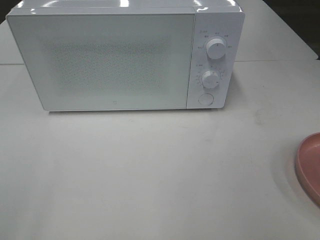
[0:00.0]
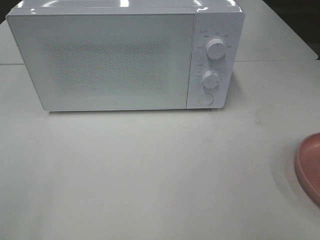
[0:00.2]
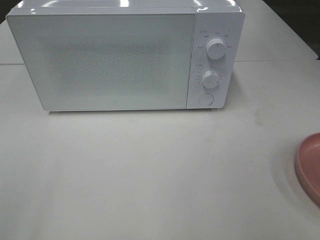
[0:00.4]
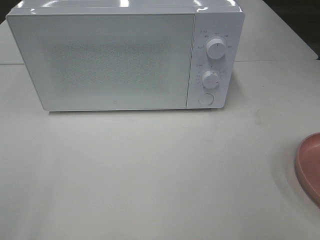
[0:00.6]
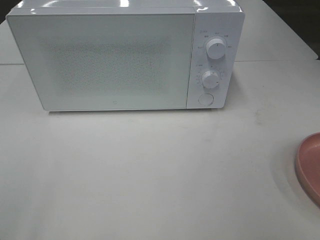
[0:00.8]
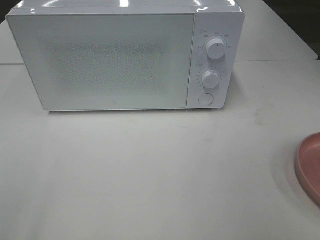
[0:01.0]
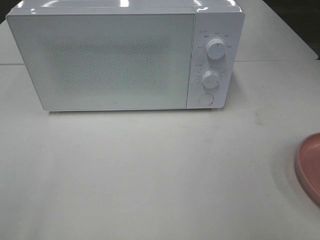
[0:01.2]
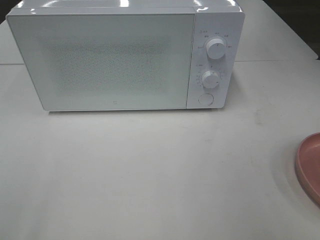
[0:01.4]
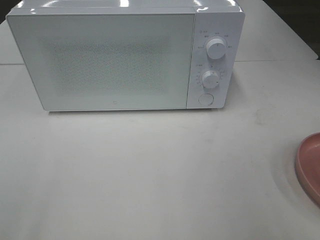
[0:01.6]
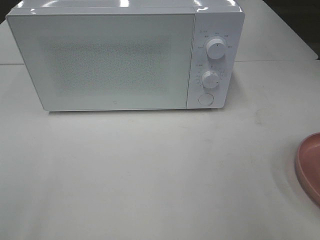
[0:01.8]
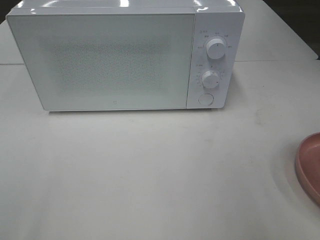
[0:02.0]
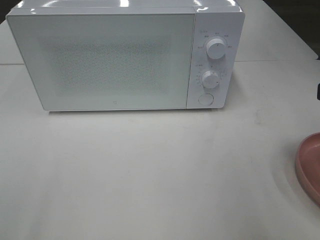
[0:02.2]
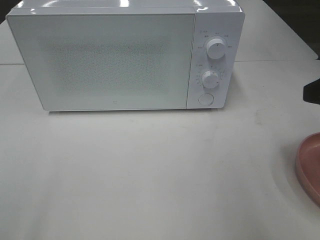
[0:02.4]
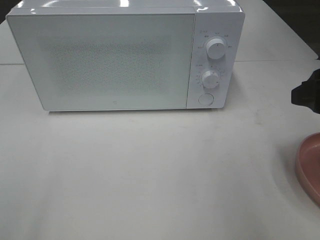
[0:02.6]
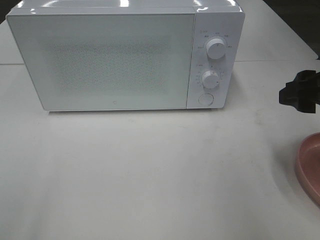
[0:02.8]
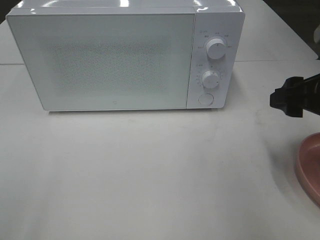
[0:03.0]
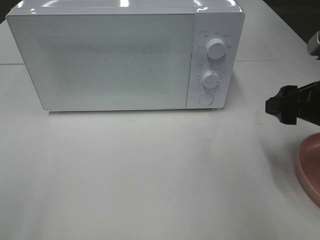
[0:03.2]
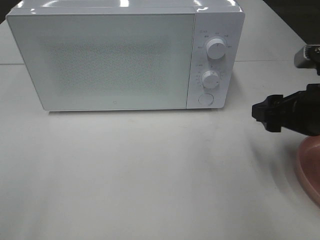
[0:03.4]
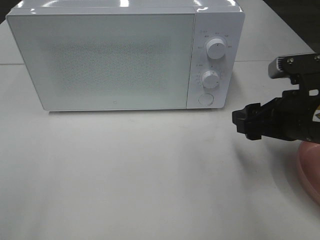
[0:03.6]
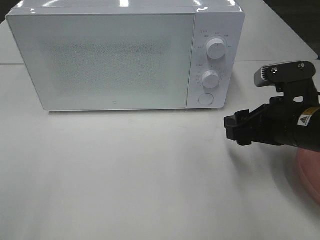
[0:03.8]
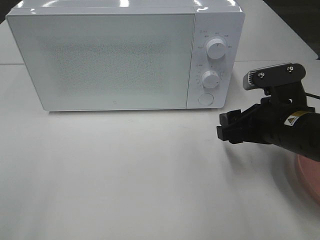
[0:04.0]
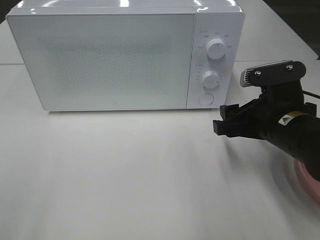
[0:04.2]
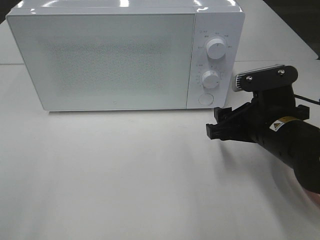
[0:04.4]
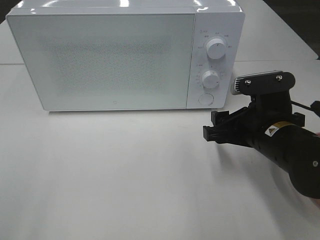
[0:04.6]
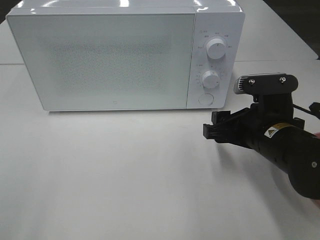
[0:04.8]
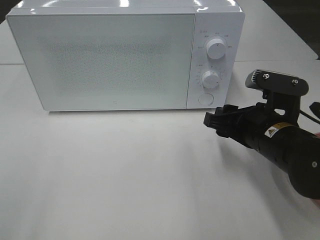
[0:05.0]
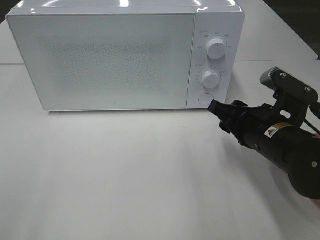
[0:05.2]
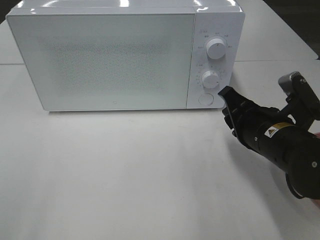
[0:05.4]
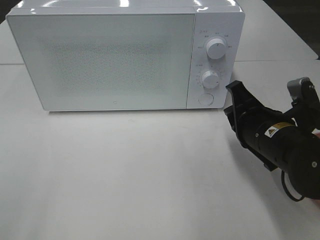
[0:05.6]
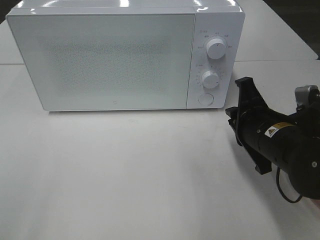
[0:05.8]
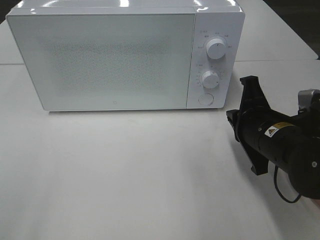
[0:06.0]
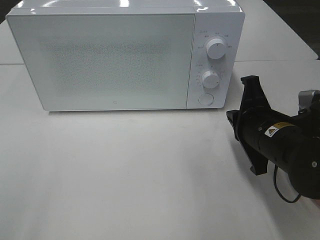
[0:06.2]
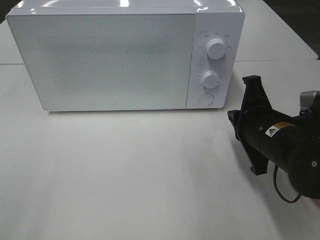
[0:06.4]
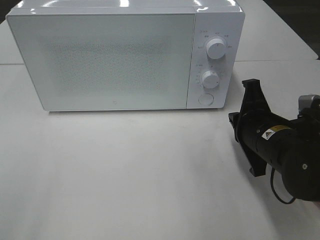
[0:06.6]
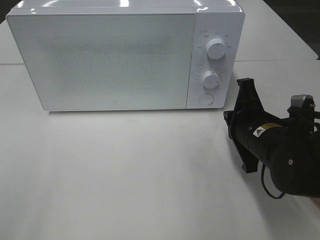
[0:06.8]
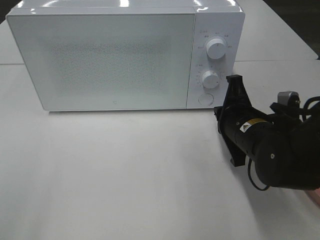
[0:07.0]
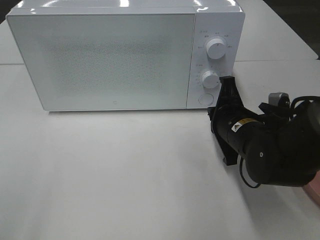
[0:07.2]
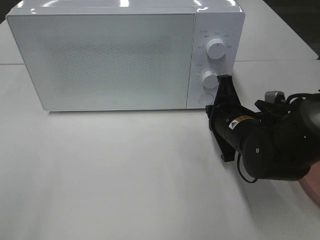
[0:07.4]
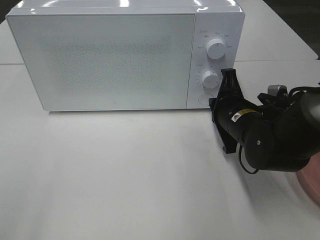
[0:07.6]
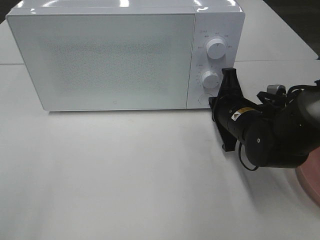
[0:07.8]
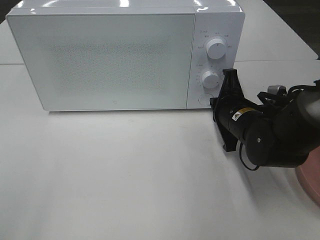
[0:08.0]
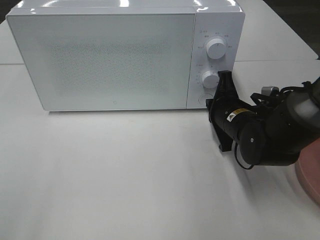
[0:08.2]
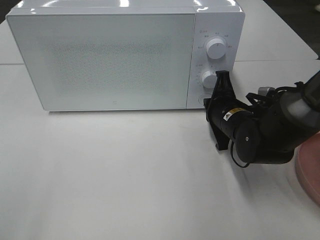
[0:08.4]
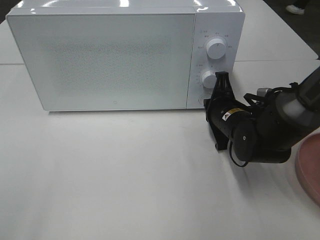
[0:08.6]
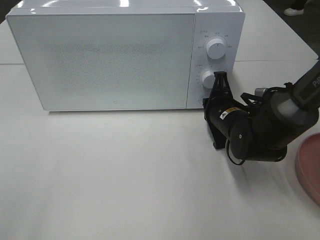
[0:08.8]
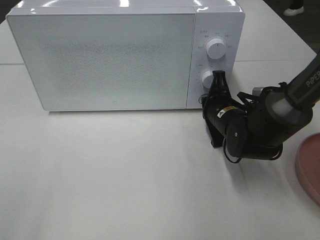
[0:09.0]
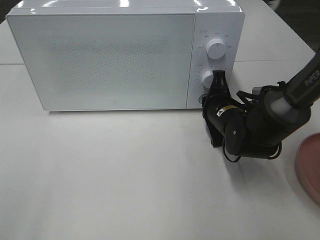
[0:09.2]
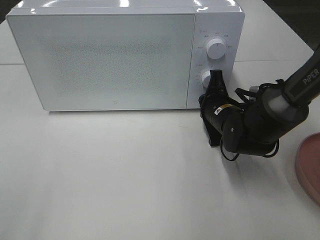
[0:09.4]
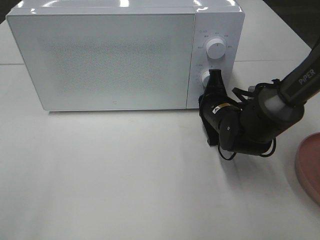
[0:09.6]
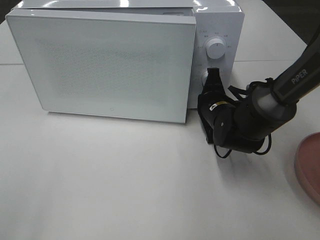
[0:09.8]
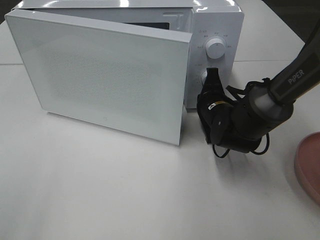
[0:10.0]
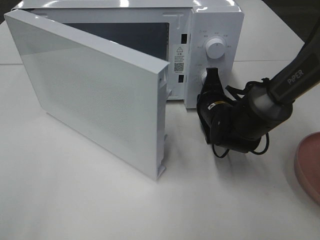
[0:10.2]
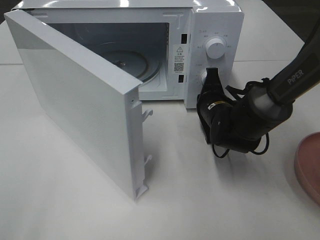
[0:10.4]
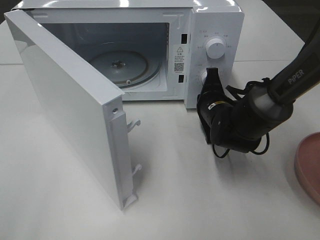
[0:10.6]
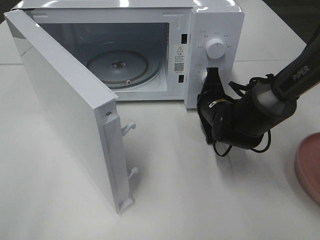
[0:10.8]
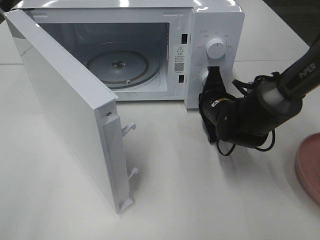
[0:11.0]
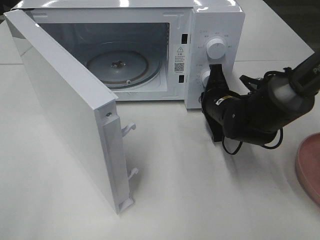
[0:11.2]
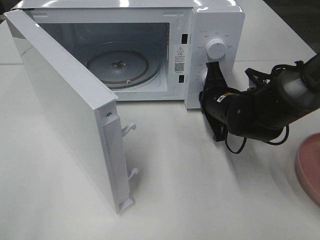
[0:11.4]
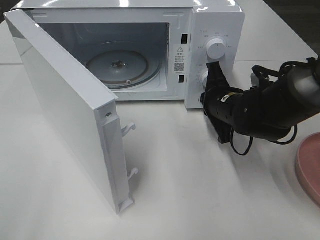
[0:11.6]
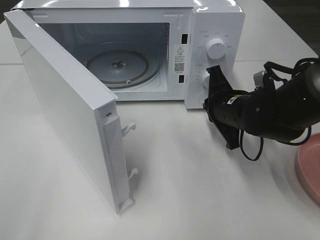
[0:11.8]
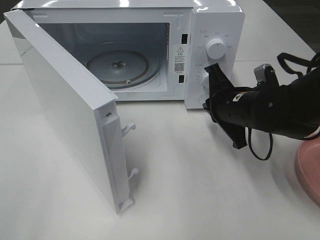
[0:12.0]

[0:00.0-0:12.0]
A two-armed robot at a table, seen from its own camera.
Task of the whole recording: Heat the burger.
Step, 0:00.0 to 0:11.4: Right hand: press the switch.
0:01.6 to 0:03.0: The right gripper shifts about 15 cm forward and downward.
0:03.0 to 0:04.4: The right gripper heads downward and to the left, covering some 10 cm.
0:04.4 to 0:06.0: The right gripper closes.
0:06.0 to 0:07.6: The right gripper moves forward, roughly 5 cm.
0:07.6 to 0:09.0: The right gripper changes place by some 5 cm.
0:10.4 to 0:12.0: The right gripper heads upward and backward, covering roughly 10 cm.

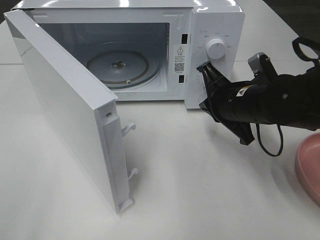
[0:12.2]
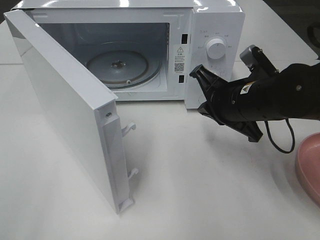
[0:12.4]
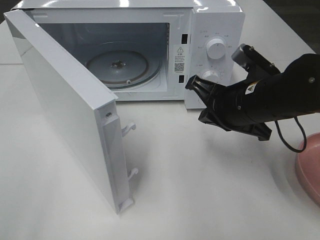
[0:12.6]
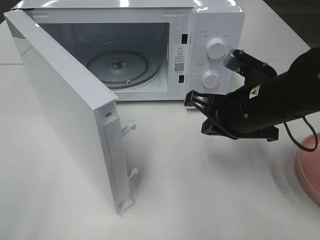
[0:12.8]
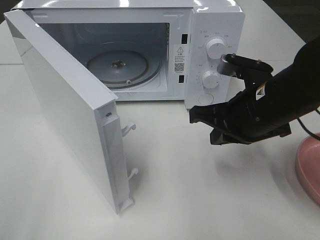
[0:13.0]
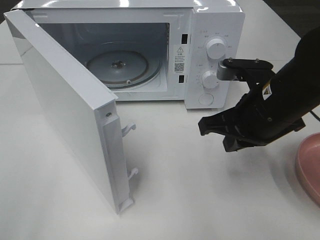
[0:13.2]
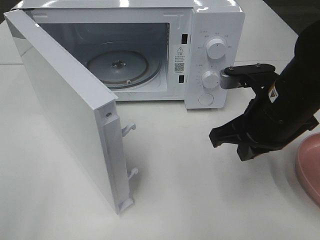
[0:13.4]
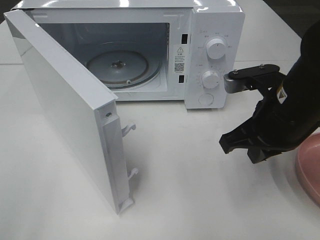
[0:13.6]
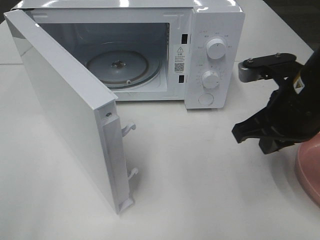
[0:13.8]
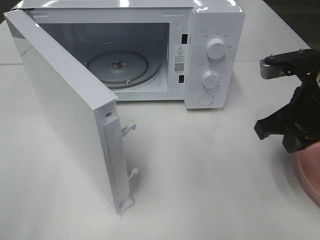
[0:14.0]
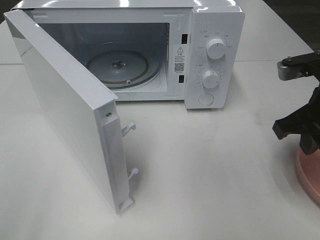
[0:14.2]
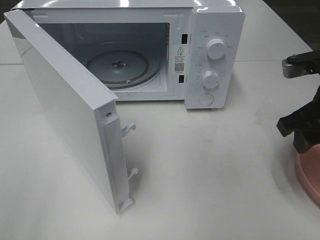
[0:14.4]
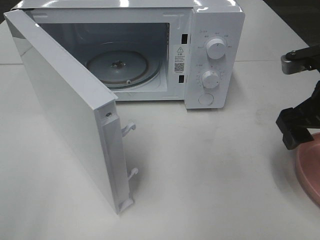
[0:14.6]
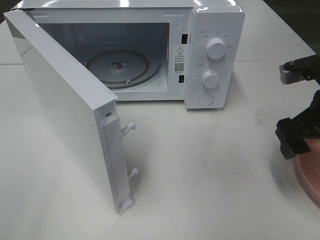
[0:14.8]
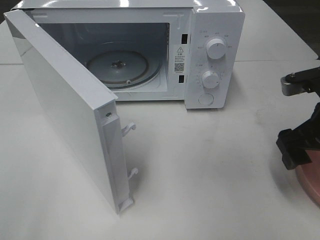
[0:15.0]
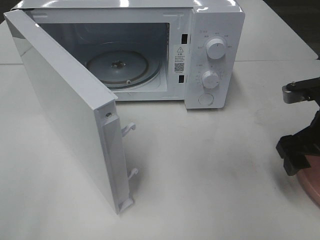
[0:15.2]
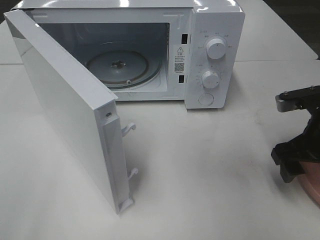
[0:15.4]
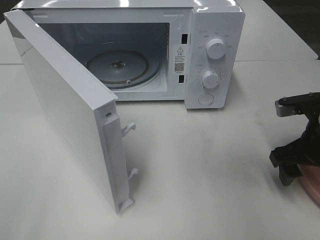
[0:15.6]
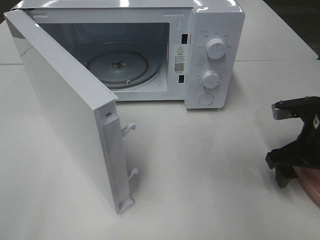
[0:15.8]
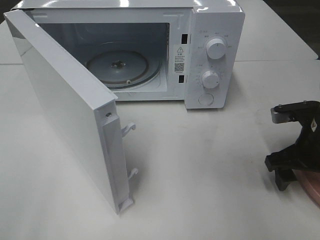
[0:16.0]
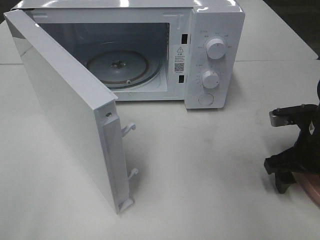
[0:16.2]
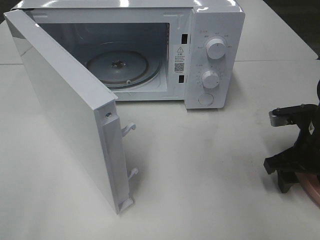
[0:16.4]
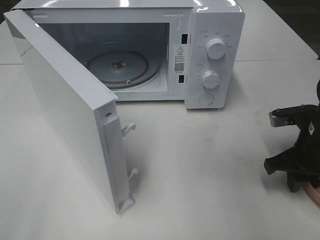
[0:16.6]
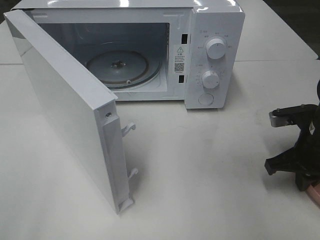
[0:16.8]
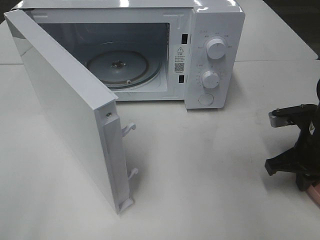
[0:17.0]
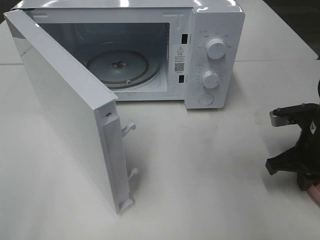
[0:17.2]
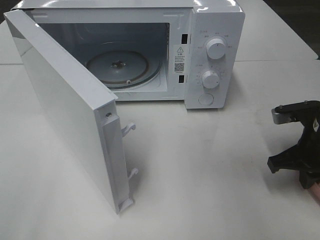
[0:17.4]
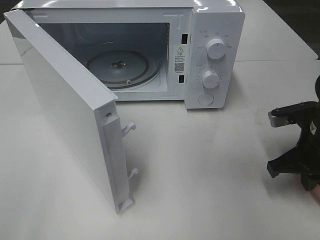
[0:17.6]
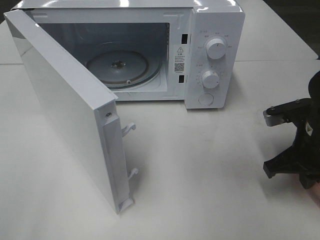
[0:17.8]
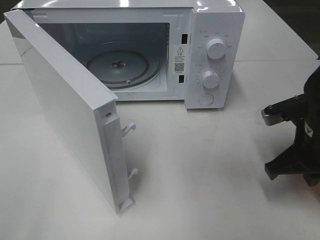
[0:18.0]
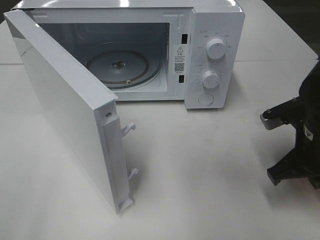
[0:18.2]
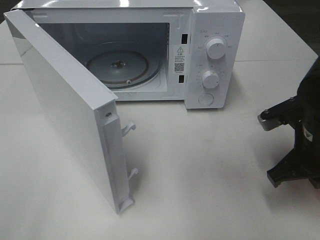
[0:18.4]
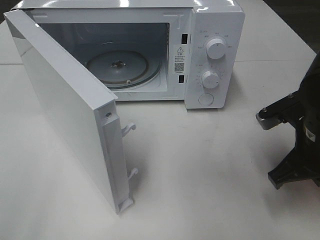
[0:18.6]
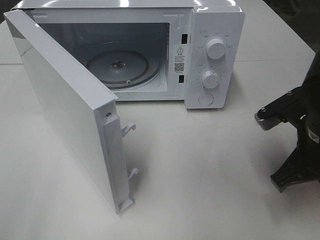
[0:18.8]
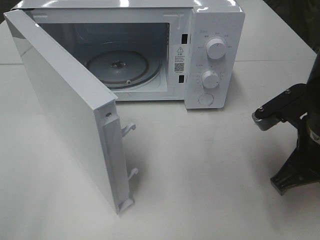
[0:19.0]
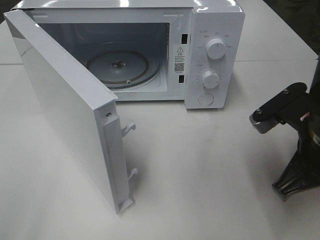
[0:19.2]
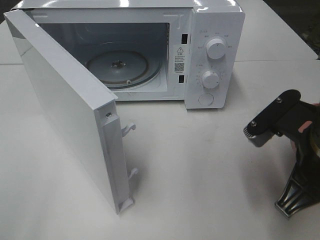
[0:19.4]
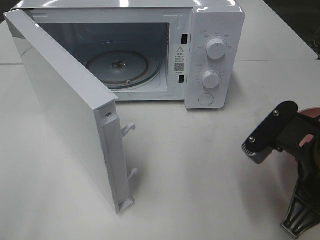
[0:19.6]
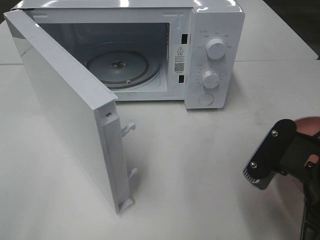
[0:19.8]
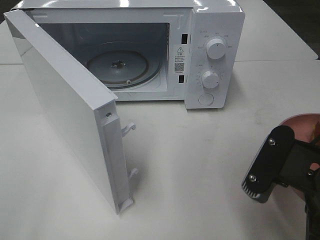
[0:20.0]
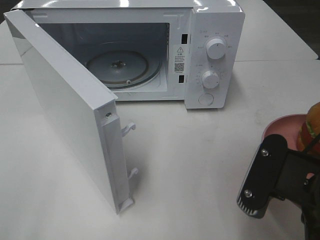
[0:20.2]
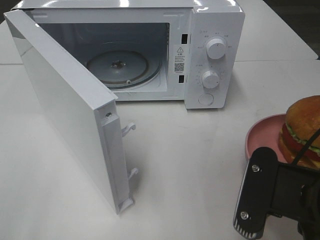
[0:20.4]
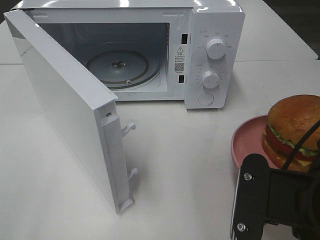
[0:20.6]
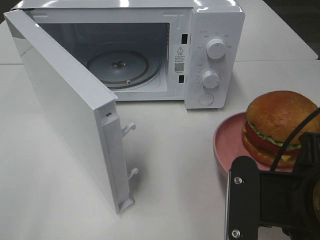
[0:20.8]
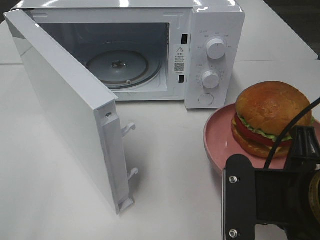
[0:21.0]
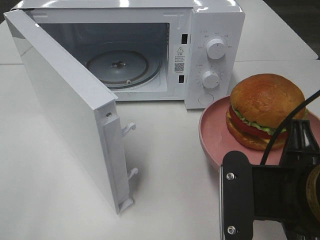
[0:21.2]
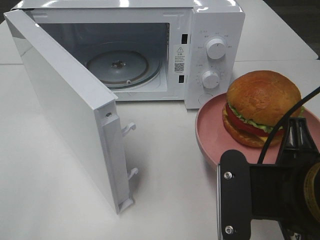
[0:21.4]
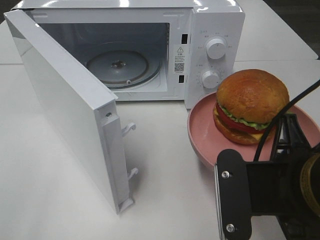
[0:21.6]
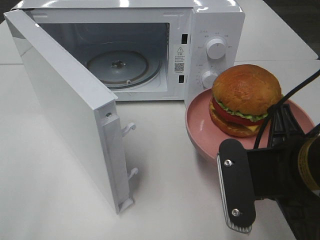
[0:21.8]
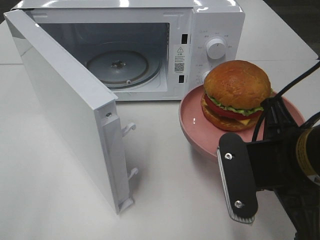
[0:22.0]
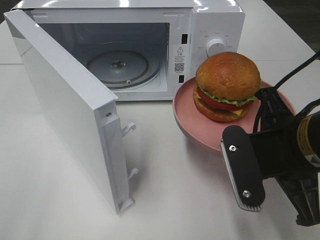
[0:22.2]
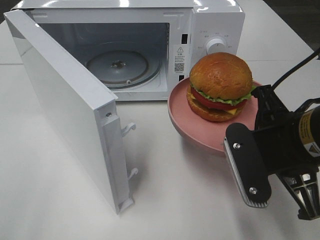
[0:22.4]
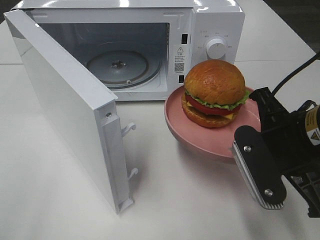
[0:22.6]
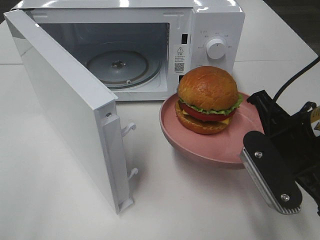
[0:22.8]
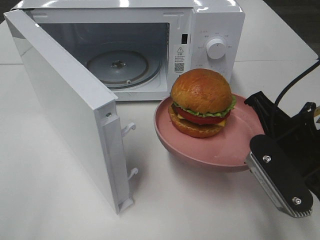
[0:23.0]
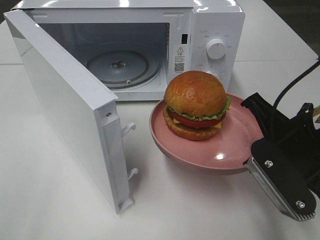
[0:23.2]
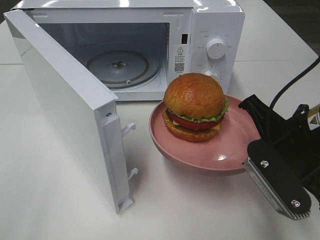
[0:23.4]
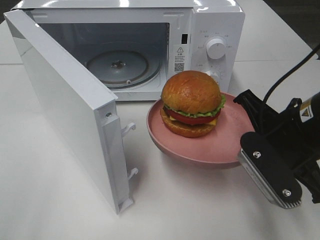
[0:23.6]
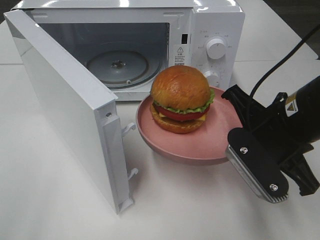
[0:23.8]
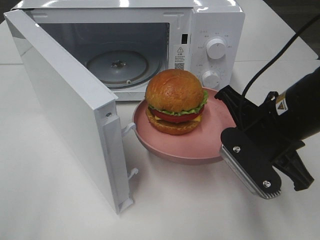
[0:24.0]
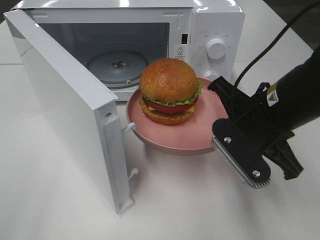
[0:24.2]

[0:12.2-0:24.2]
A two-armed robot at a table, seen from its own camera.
Task of the whole recording: Heat the burger.
Step, 0:12.2 to 0:17.0: Right hand: grab the plate with the hamburger.
0:12.2 to 0:13.8: The right gripper travels upward and backward by some 10 cm.
0:13.8 to 0:15.2: The right gripper travels to the right by about 5 cm, and opens up.
0:15.2 to 0:16.6: The right gripper travels downward by approximately 5 cm, and closes.
0:16.6 to 0:18.2: The right gripper shifts by some 5 cm, and closes up.
0:18.2 to 0:19.8: The right gripper heads backward and to the left, covering some 10 cm.
0:21.2 to 0:22.6: The right gripper travels forward by approximately 10 cm.
0:22.6 to 0:24.2: The right gripper ends up approximately 5 cm from where it was.
